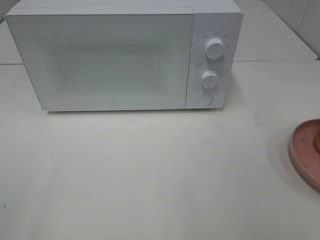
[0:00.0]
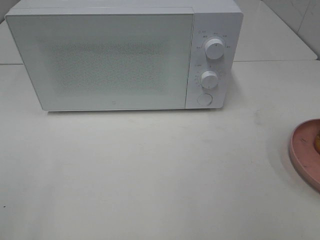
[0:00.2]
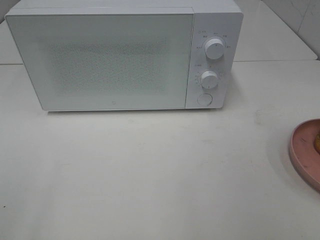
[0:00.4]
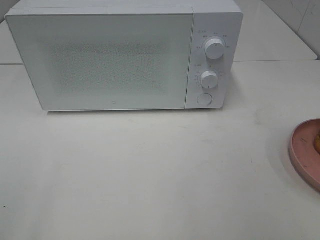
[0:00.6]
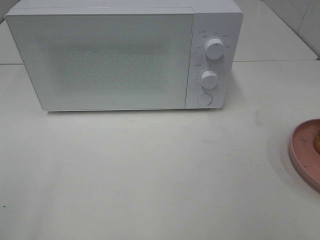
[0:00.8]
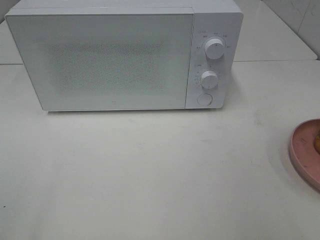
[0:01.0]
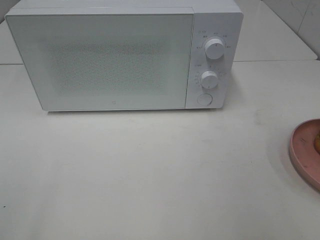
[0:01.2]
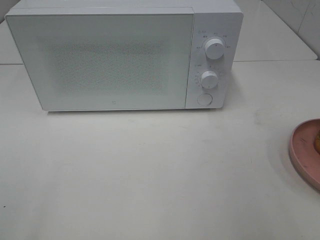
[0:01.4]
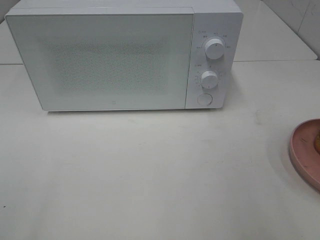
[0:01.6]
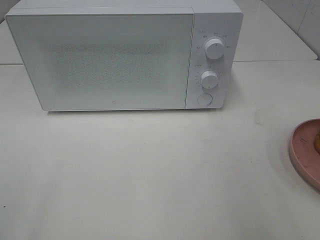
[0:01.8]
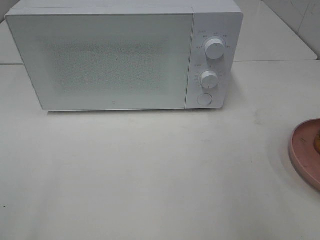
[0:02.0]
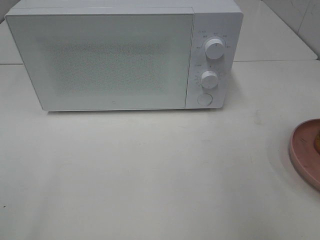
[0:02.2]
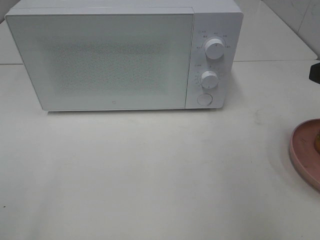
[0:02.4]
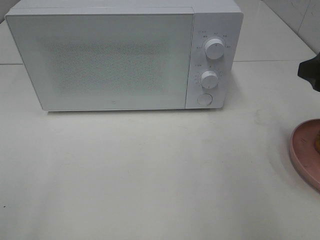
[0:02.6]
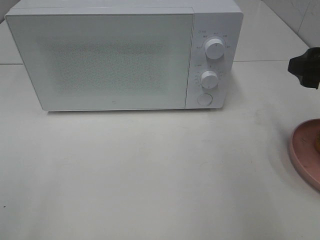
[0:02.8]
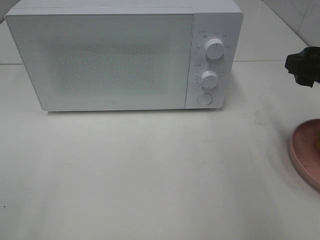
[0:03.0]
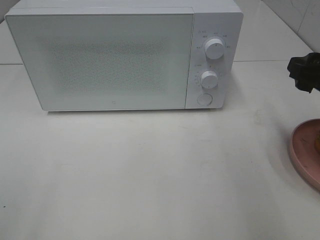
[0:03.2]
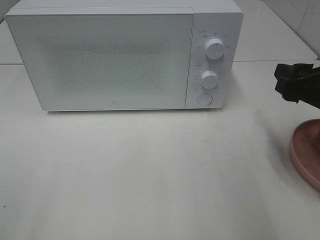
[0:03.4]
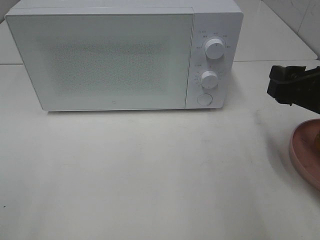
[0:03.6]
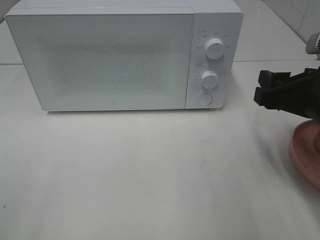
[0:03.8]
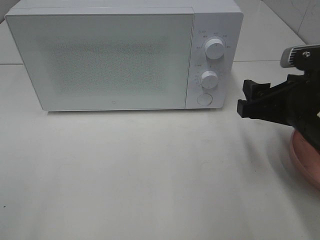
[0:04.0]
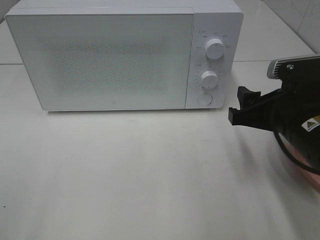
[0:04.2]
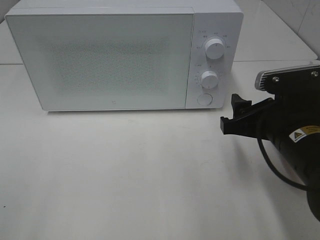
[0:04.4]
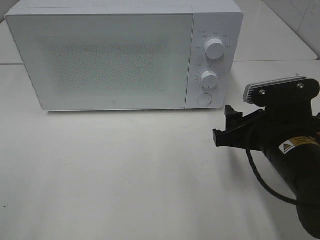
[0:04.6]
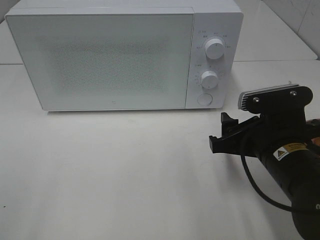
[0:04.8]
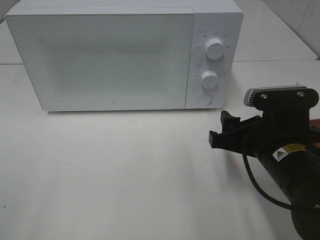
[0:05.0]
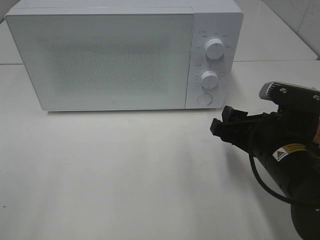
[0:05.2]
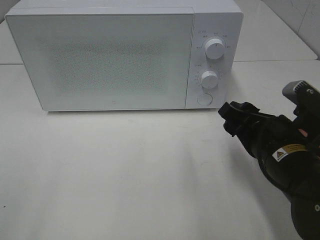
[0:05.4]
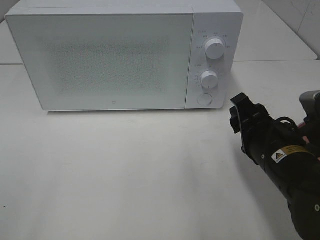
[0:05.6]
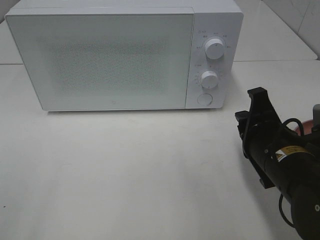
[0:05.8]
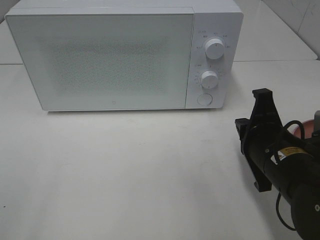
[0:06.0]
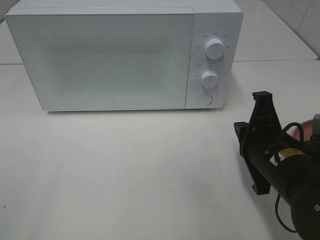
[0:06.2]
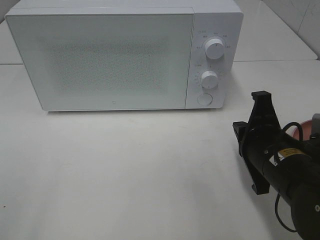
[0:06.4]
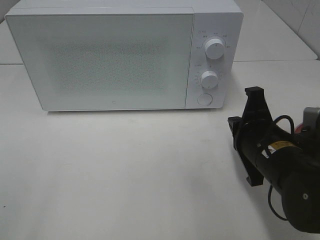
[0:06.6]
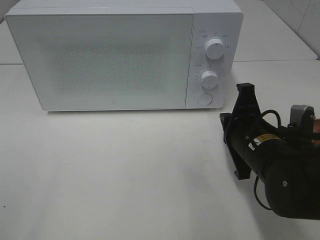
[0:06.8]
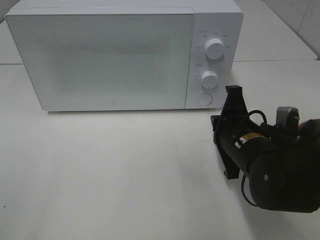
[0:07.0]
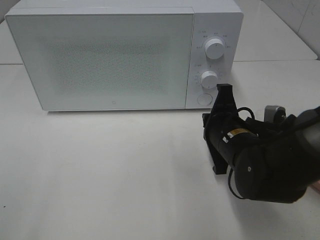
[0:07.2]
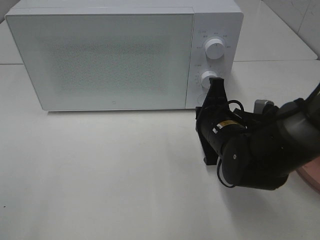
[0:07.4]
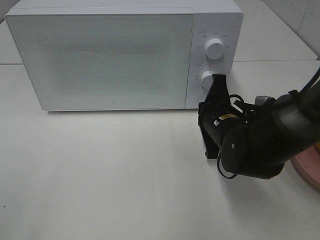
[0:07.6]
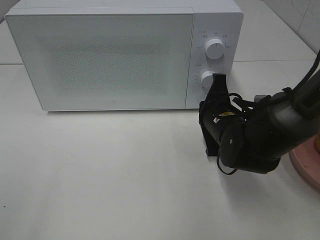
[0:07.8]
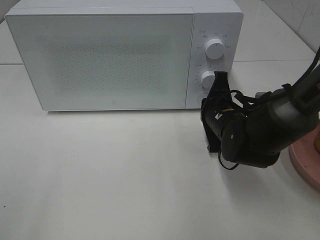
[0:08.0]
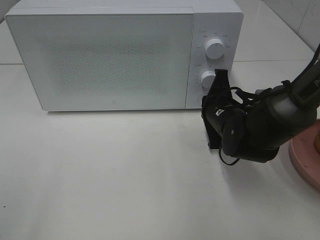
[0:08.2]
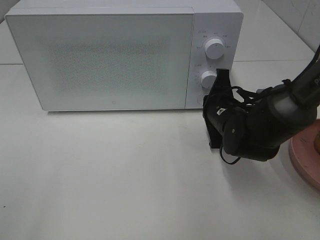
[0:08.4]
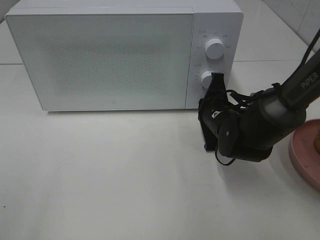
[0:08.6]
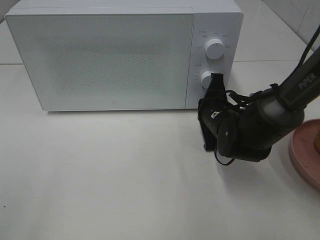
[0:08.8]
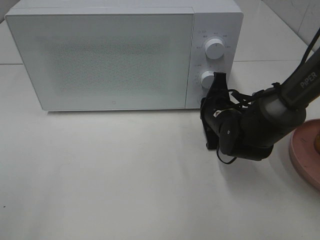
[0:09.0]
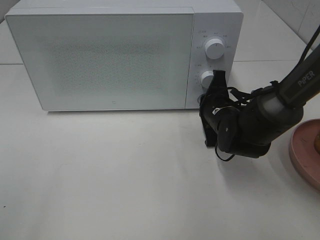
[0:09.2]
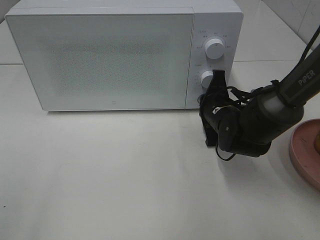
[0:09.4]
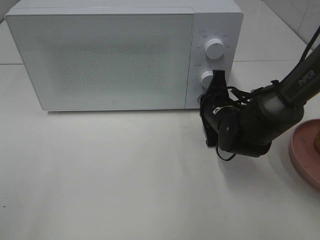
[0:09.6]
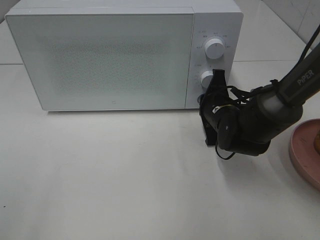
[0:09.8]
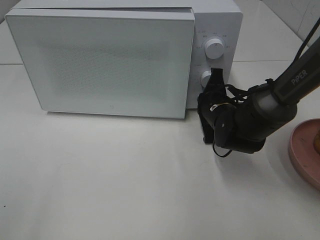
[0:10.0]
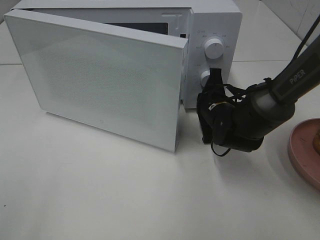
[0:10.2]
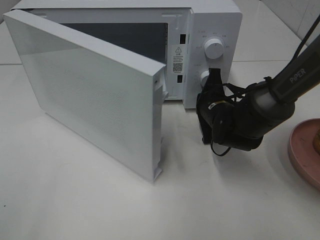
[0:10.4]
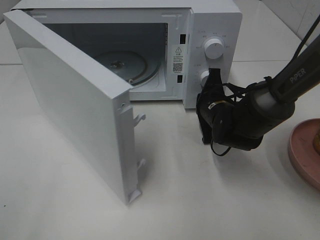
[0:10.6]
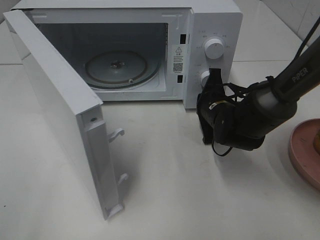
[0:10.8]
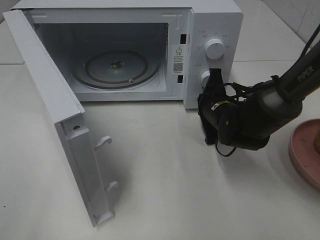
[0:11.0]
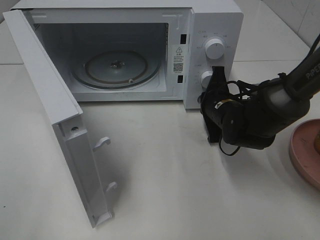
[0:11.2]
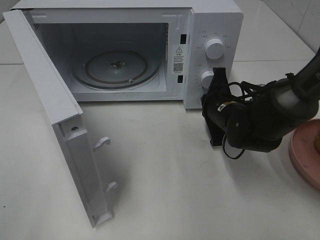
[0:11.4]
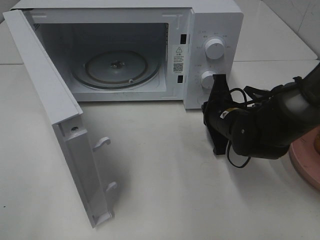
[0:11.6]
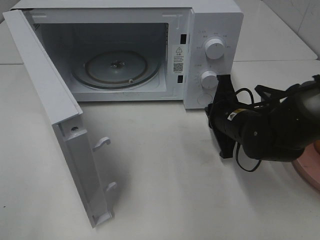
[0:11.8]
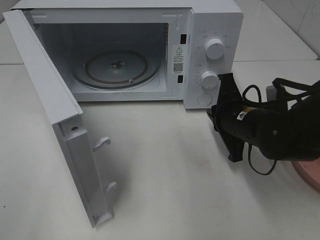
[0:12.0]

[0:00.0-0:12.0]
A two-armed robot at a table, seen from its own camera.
Task of the whole recording: Heat the burger.
Step, 0:00.0 to 0:11.6: Right hand: press the switch.
0:01.6 to 0:03.0: The right gripper is displaced forward and downward by some 15 cm.
0:03.0 to 0:04.4: The right gripper shifts some 10 cm to the left and downward.
0:04.4 to 0:06.0: The right gripper closes its fingers.
0:06.0 to 0:07.6: The right gripper goes approximately 10 cm forward.
0:07.6 to 0:09.0: The right gripper moves roughly 5 cm.
0:10.4 to 0:12.0: The right gripper travels backward by about 10 cm.

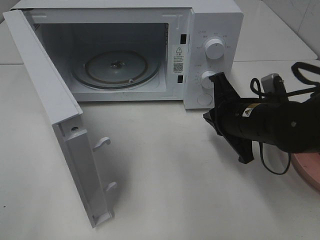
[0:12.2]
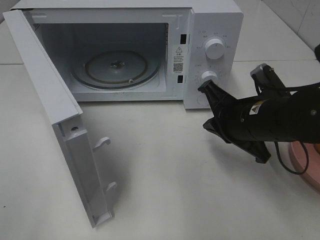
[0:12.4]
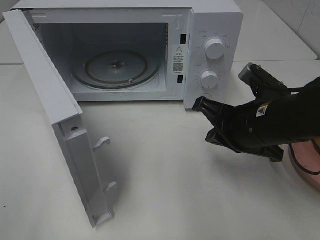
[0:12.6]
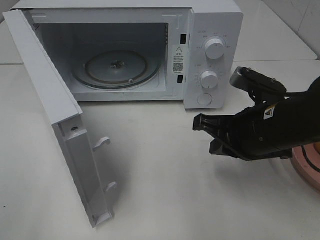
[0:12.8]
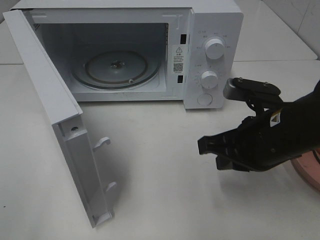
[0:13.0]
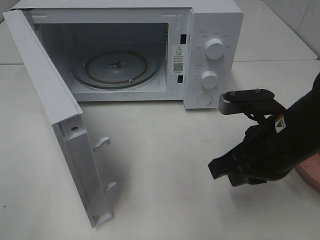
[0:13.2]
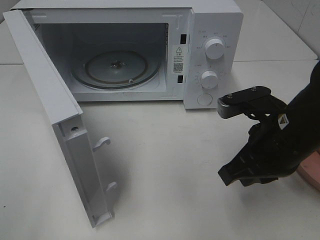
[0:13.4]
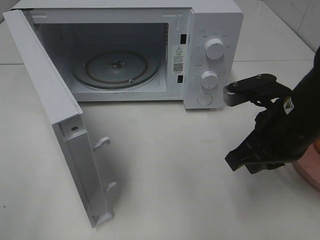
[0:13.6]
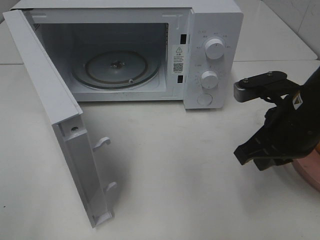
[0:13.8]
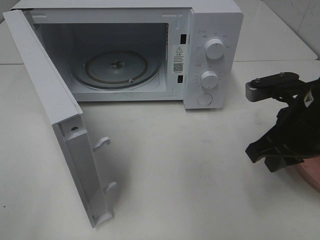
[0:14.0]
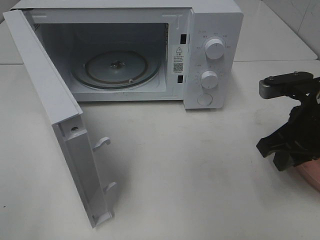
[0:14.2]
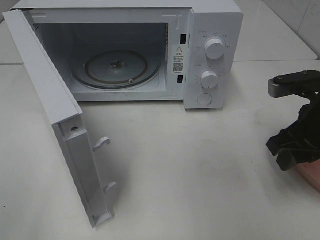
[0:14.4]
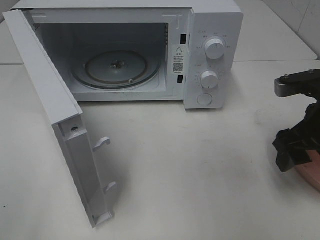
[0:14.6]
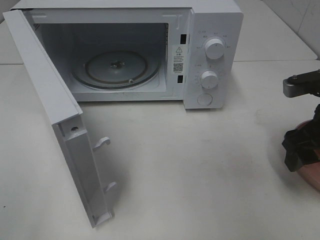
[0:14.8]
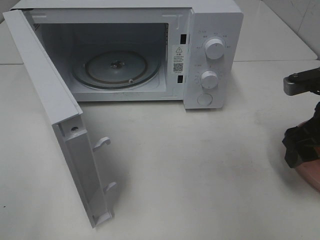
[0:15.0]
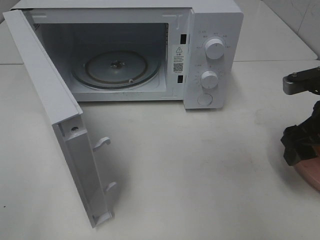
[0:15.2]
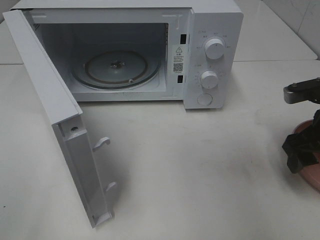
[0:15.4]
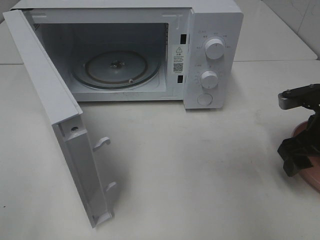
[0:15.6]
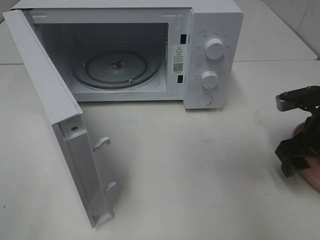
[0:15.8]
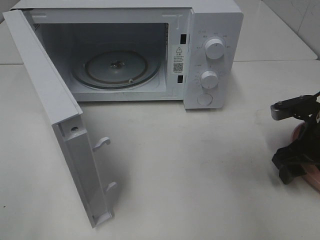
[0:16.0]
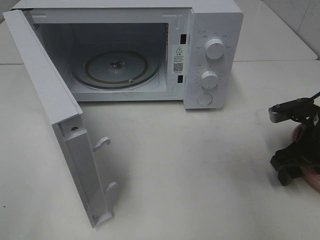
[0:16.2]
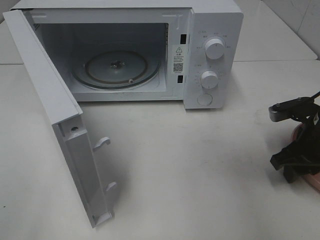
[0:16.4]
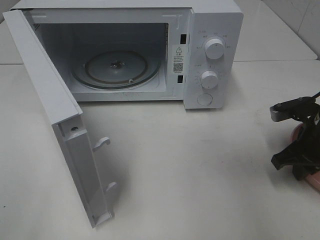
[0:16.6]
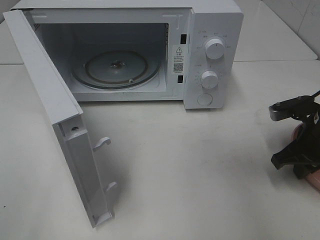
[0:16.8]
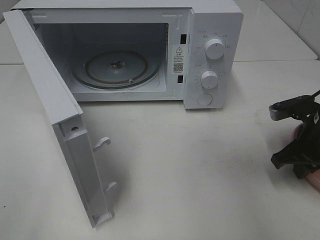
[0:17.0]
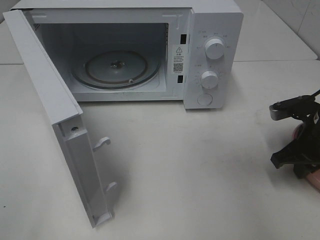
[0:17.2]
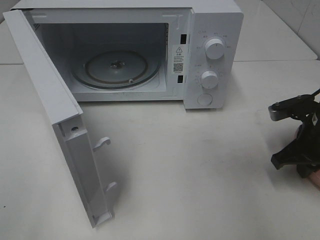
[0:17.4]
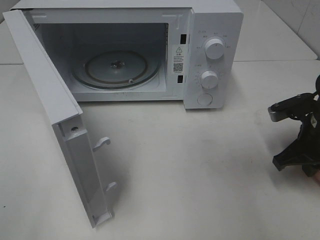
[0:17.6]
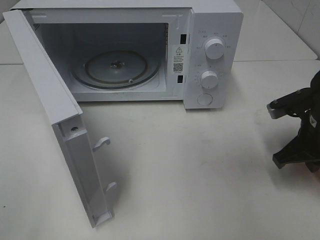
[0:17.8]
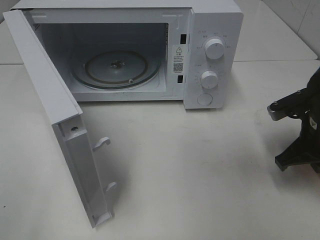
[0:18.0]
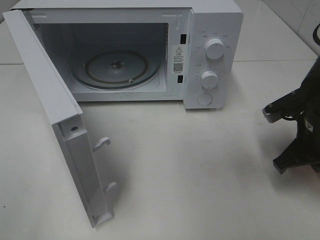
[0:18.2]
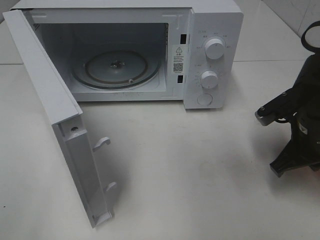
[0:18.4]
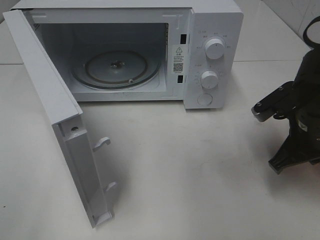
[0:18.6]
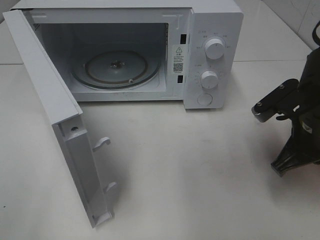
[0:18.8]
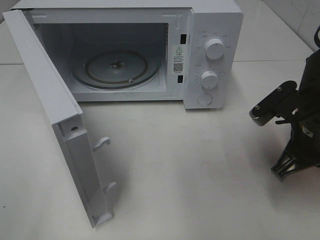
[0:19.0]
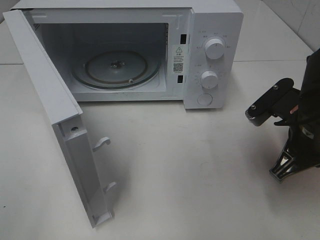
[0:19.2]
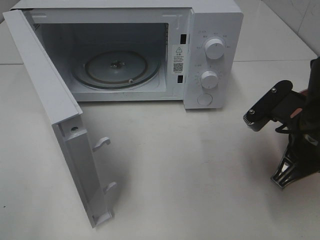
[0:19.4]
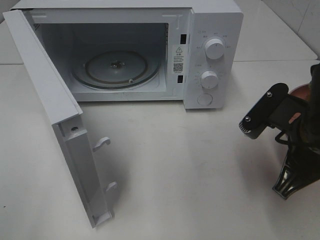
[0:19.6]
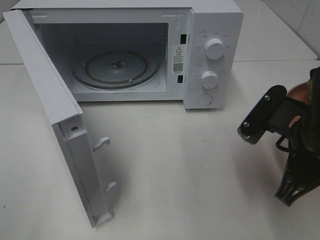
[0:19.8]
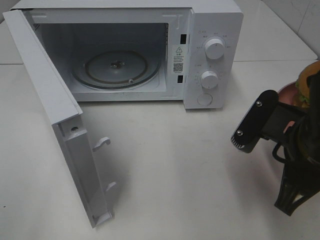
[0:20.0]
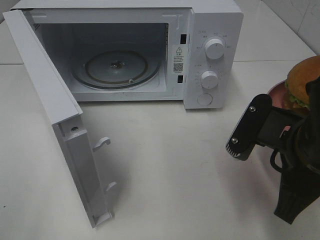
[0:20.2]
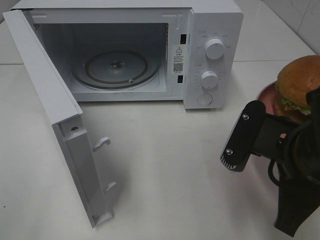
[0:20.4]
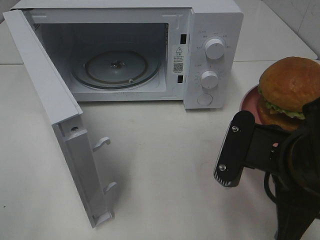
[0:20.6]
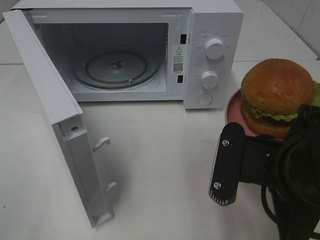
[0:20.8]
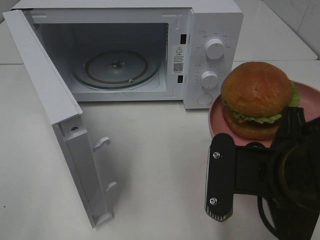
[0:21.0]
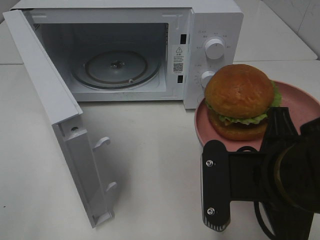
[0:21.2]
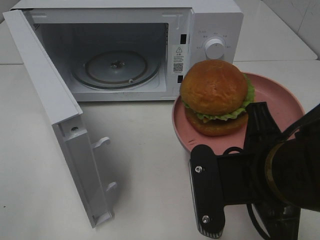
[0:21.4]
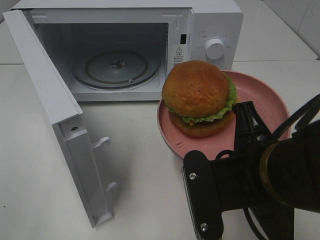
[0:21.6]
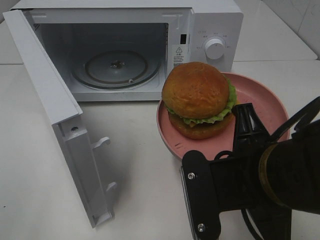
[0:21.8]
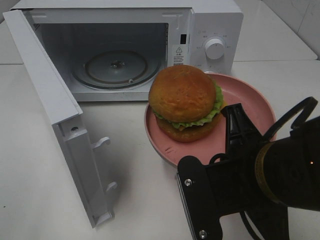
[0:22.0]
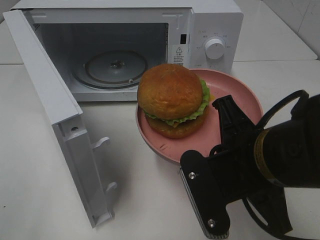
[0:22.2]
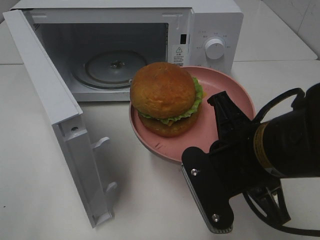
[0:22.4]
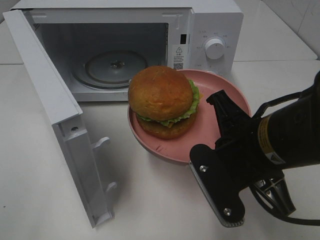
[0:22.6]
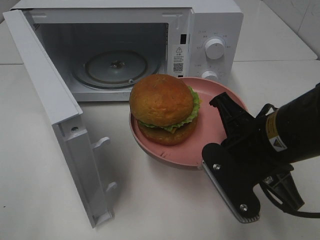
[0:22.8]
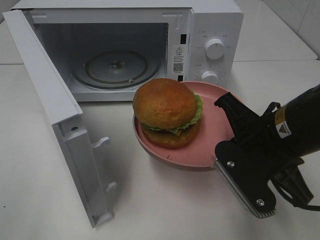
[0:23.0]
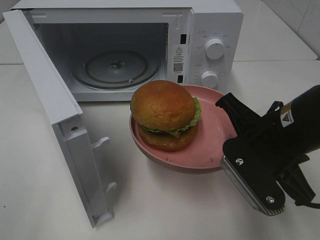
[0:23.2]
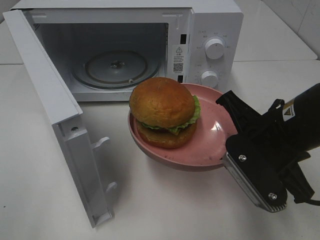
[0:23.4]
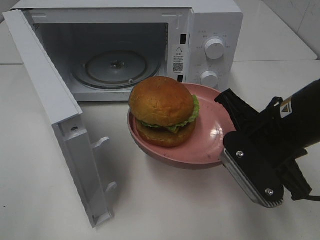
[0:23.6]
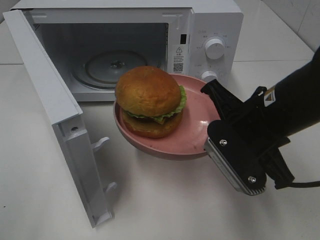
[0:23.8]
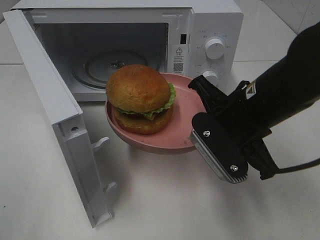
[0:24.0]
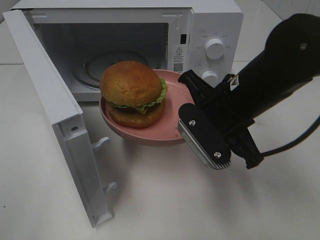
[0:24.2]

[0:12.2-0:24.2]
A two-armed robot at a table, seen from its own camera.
Task of the whole recording: Heat the burger.
Step, 0:12.2 to 0:17.6: Right hand: grab the plate with the hamburger.
0:12.2 to 0:13.8: The right gripper changes place by about 5 cm.
0:13.8 to 0:15.2: The right gripper heads to the right, covering some 10 cm, and opens up.
0:15.2 to 0:16.6: The right gripper is displaced downward by approximately 5 cm, and closes its fingers.
0:16.6 to 0:18.2: The grippers stay close to where they were, moving slightly.
0:18.2 to 0:19.8: The right gripper travels backward, to the left and upward by approximately 10 cm.
0:19.8 to 0:21.2: The right gripper moves to the left and backward, about 10 cm.
0:22.6 to 0:24.2: The right gripper moves forward, roughly 10 cm.
